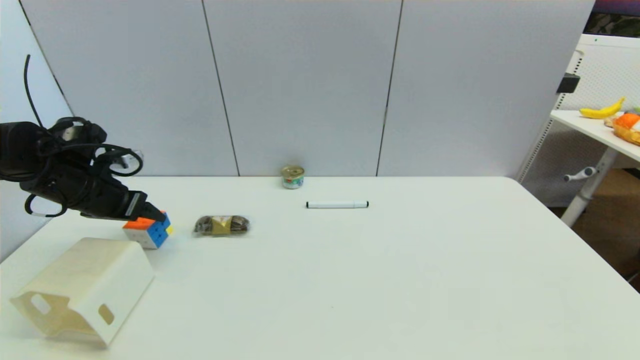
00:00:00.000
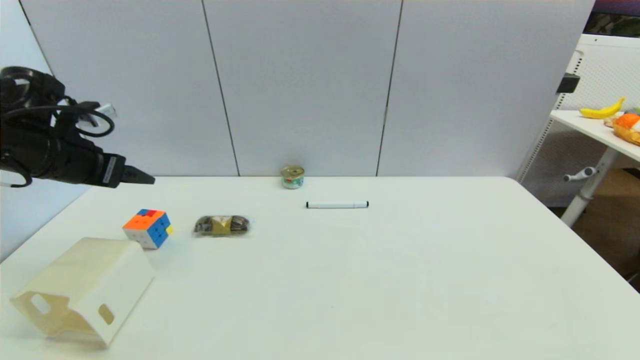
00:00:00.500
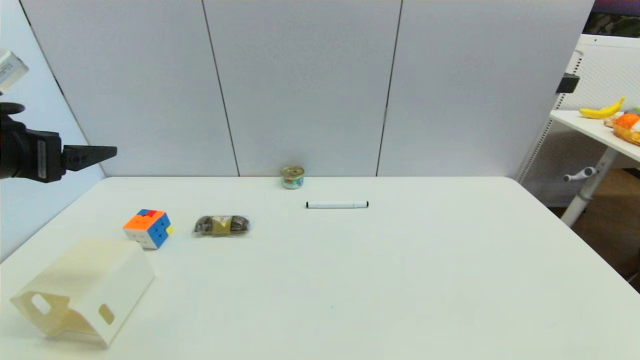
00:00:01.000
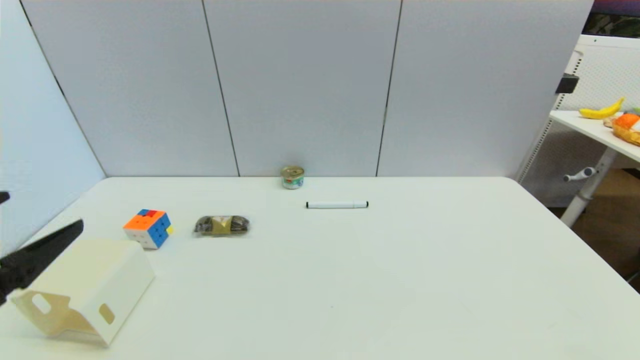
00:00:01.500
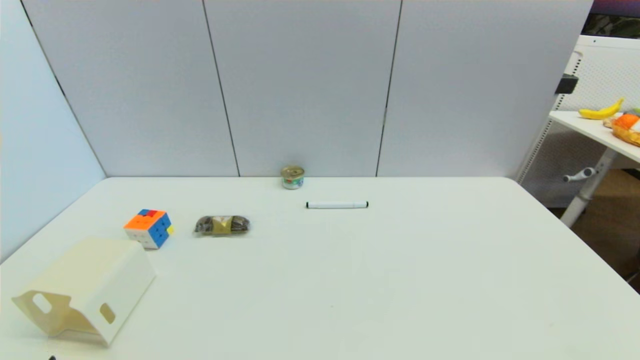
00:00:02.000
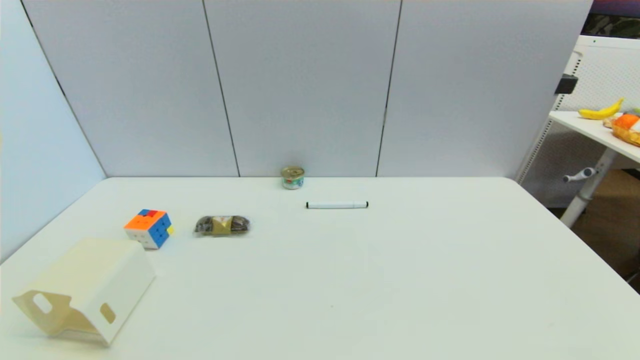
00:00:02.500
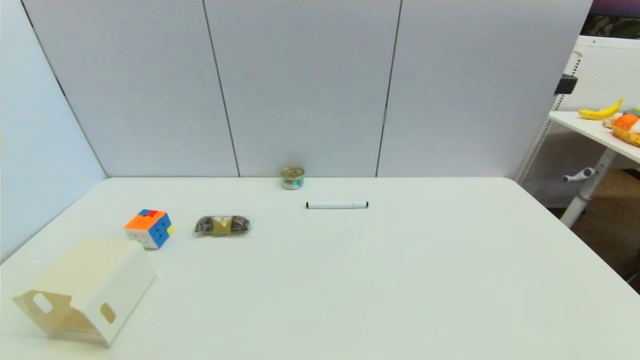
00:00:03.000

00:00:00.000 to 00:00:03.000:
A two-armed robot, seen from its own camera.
00:00:00.000 to 00:00:01.500: The left gripper moves backward, roughly 25 cm, and opens.
00:00:01.500 to 00:00:03.000: The left gripper goes approximately 15 cm downward and backward.
